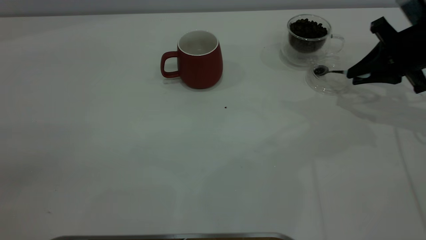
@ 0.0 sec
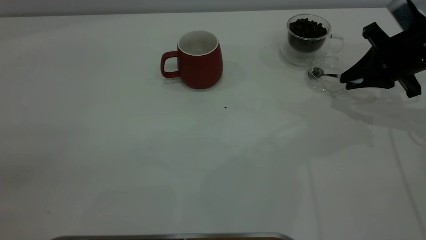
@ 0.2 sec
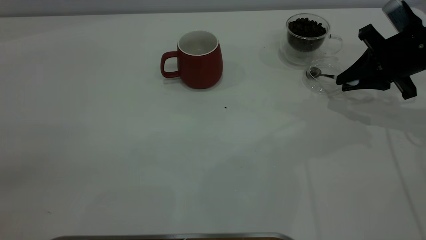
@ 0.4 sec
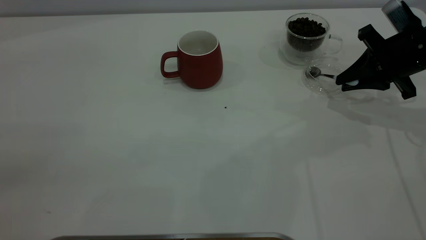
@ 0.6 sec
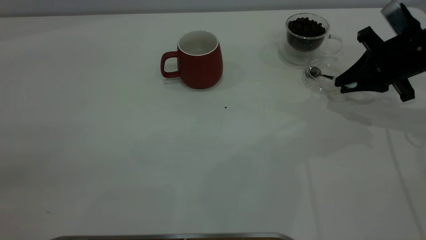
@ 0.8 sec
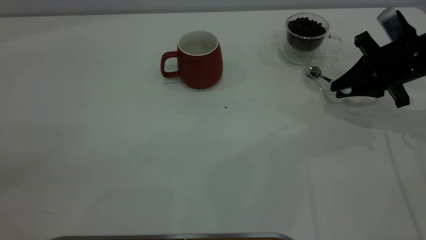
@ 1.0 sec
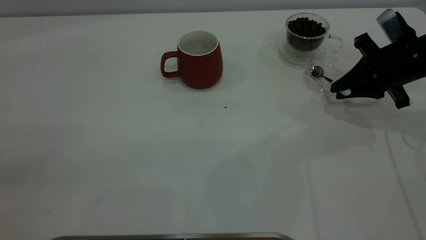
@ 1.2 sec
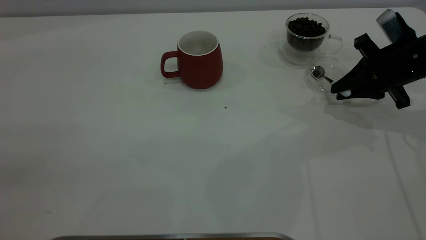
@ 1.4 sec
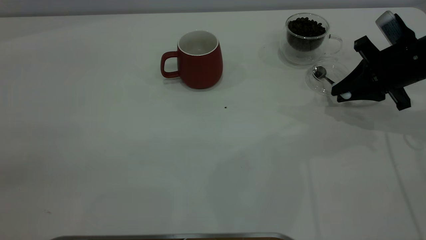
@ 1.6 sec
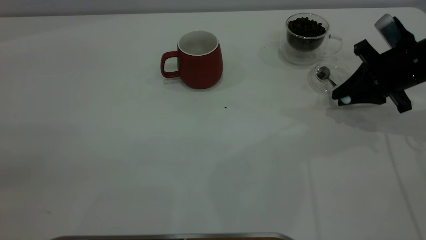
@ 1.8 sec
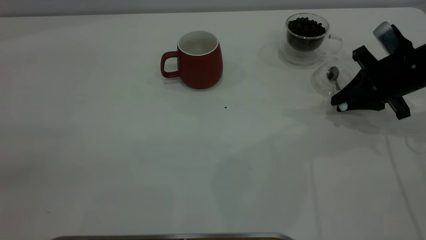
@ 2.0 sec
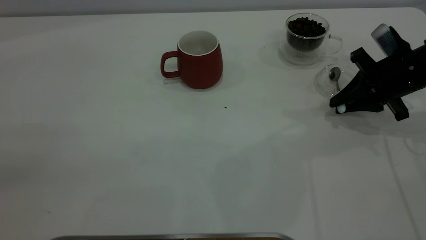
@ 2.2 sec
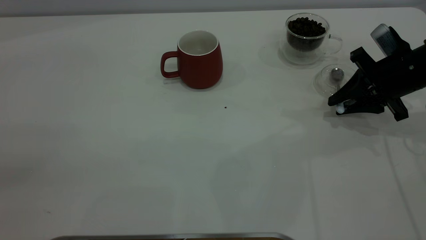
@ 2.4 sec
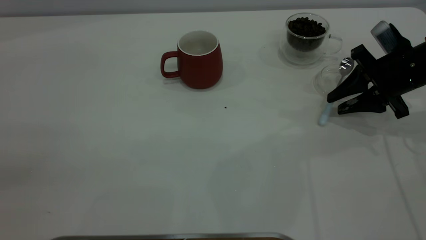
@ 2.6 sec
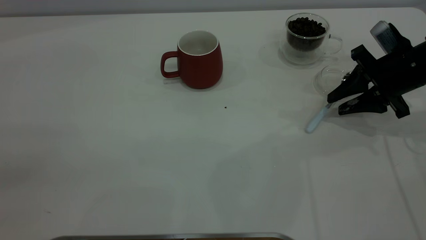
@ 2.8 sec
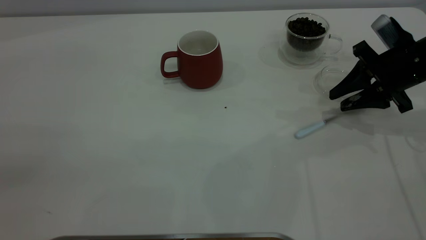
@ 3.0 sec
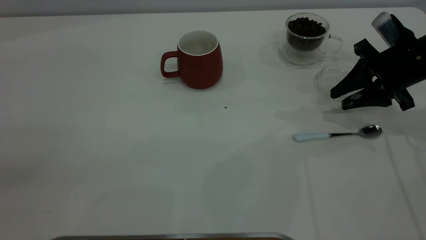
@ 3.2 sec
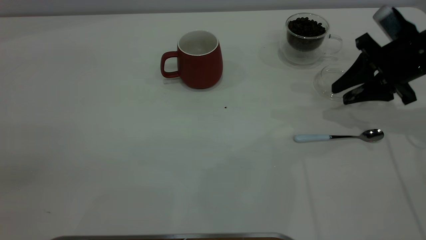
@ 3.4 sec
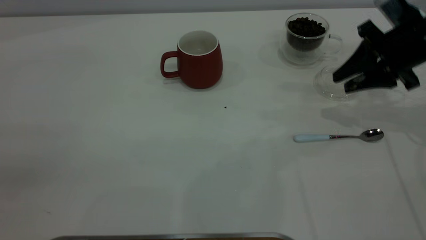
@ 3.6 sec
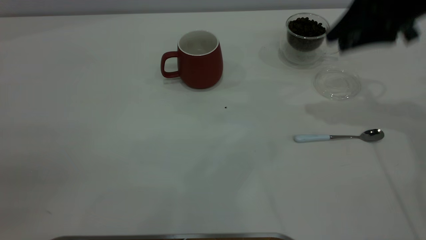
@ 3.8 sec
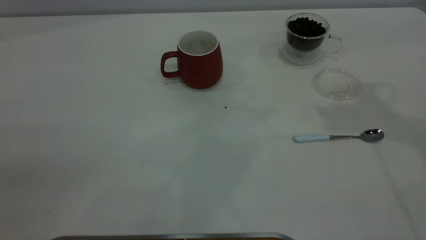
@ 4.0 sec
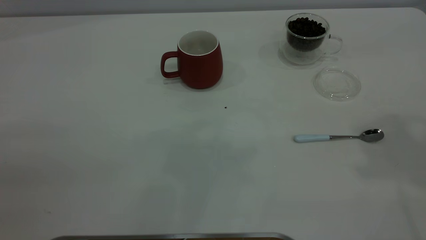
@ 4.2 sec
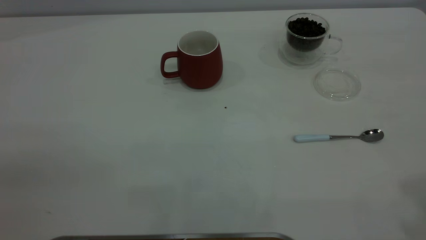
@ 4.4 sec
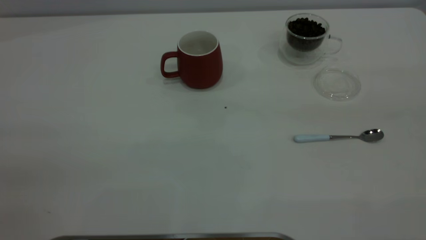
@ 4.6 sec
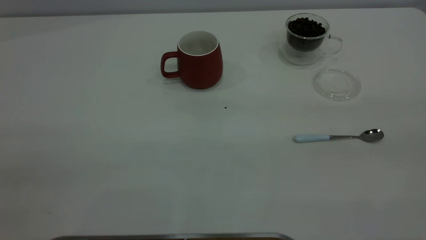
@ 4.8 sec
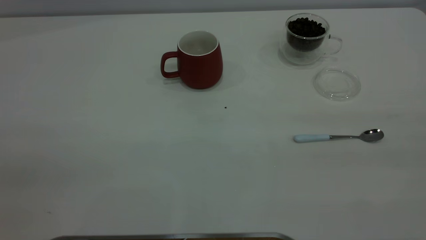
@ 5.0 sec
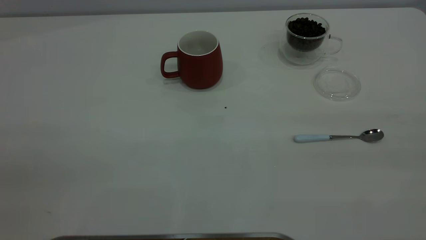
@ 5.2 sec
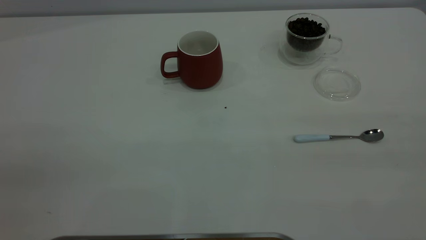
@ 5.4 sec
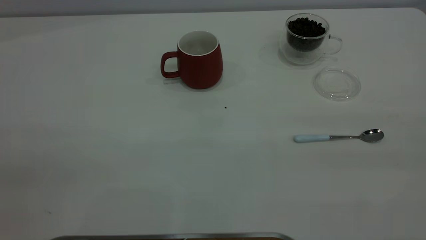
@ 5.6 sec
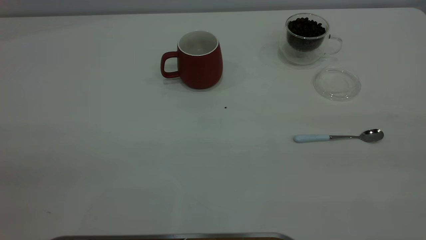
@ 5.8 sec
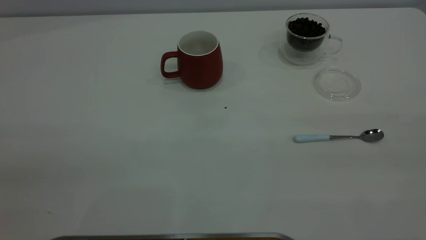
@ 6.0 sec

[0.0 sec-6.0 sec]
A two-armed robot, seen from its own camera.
Task of the whole recording: the left gripper place the red cup in the center of the table, the right gripper take the blue spoon from the cup lid and scoop out the coffee beans from the coffee cup and put them into the red cup, the right gripper put the spoon back into the cup lid.
Step, 0.0 sec to 3.6 sec: Place the spoon back in its original place.
0.0 sec to 1.6 sec: The grippers move only a little.
1.6 sec to 3.0 sec: The right gripper opens its fingers.
3.0 sec to 4.4 sec: The right gripper moves upward and backward, approximately 40 cm.
